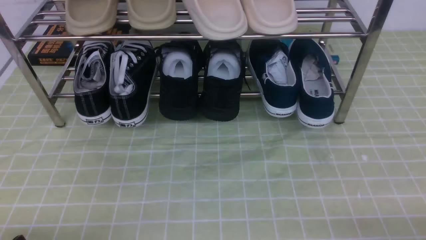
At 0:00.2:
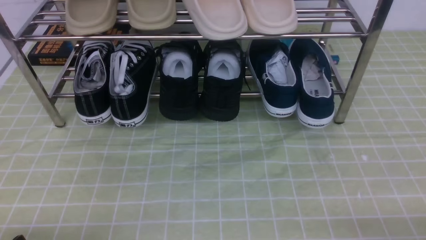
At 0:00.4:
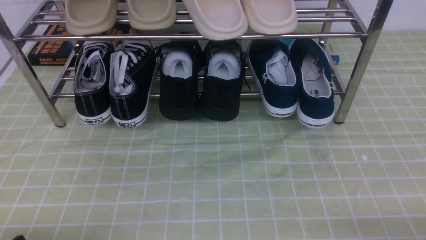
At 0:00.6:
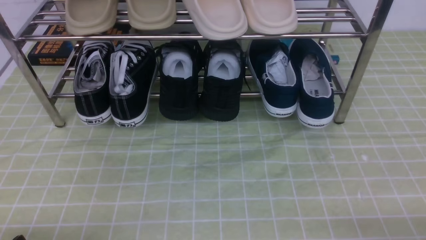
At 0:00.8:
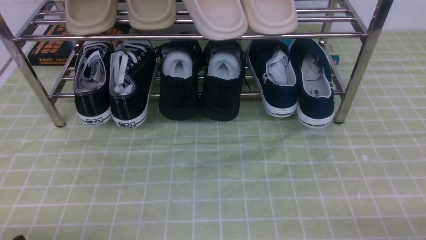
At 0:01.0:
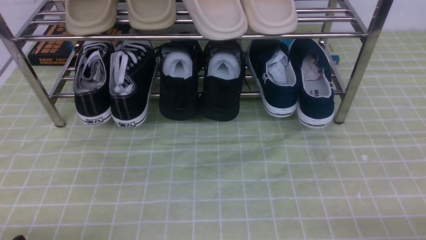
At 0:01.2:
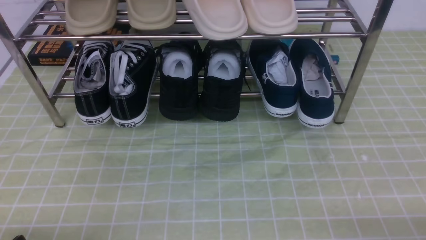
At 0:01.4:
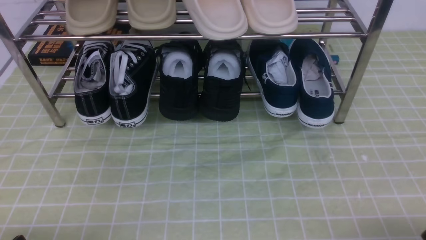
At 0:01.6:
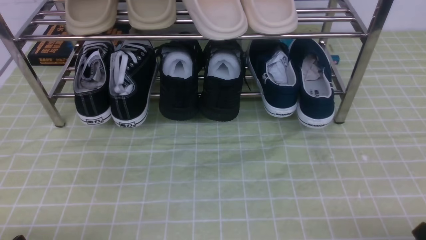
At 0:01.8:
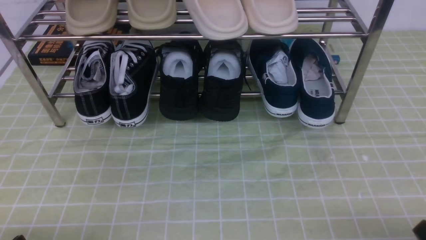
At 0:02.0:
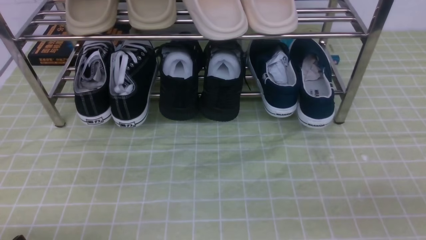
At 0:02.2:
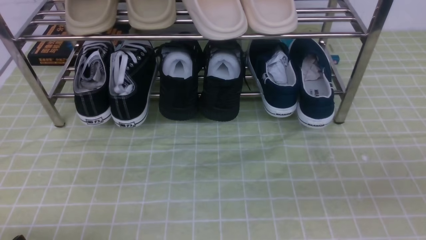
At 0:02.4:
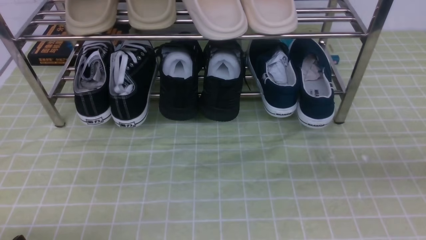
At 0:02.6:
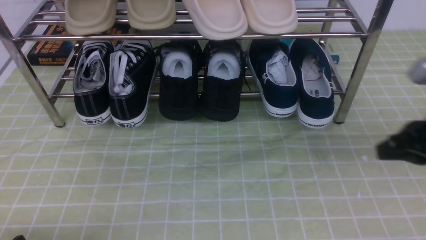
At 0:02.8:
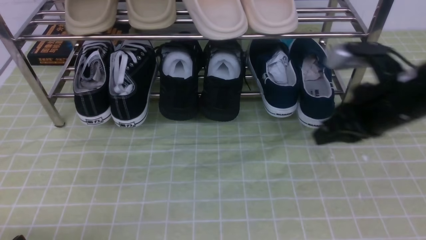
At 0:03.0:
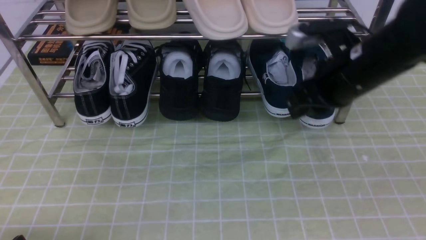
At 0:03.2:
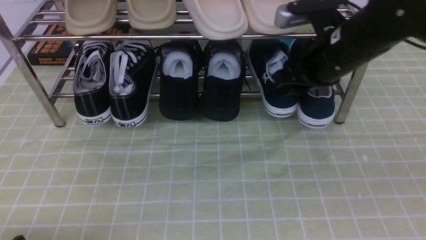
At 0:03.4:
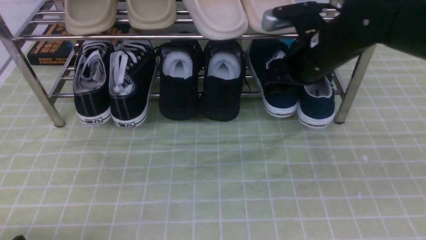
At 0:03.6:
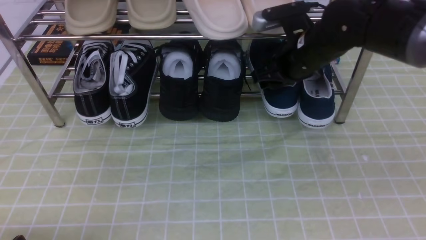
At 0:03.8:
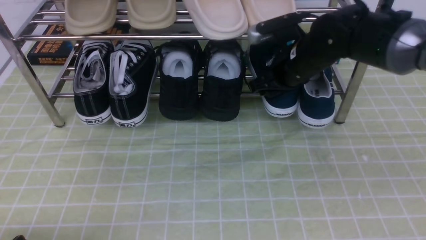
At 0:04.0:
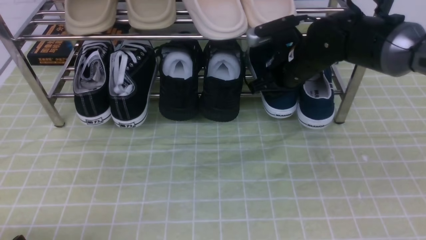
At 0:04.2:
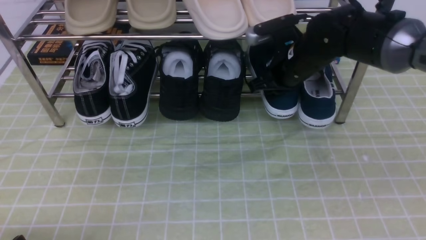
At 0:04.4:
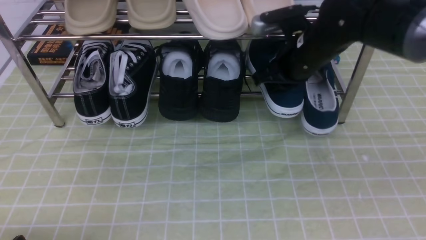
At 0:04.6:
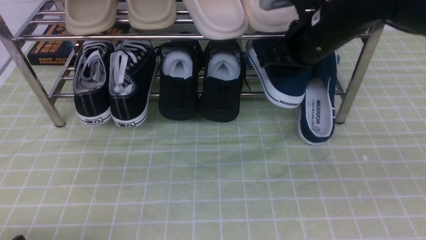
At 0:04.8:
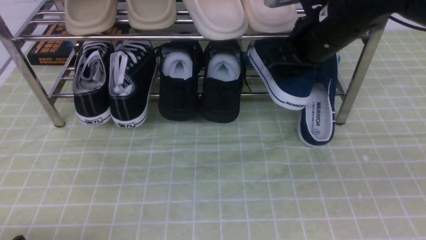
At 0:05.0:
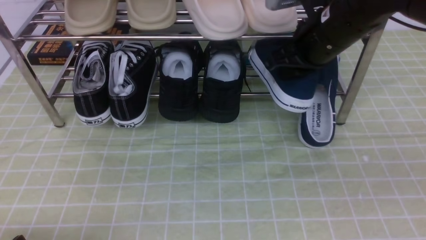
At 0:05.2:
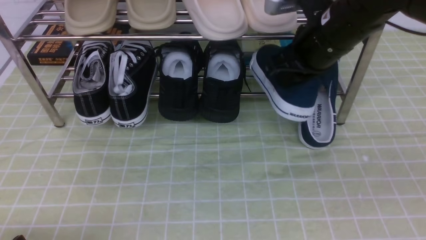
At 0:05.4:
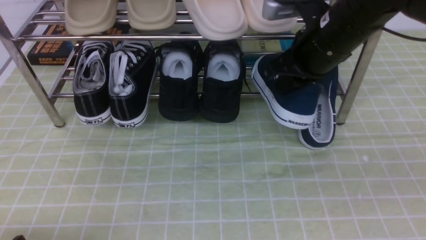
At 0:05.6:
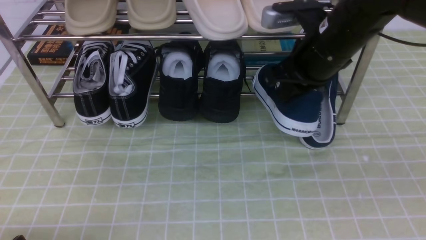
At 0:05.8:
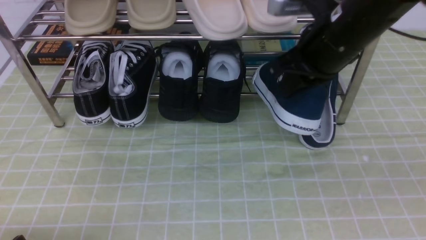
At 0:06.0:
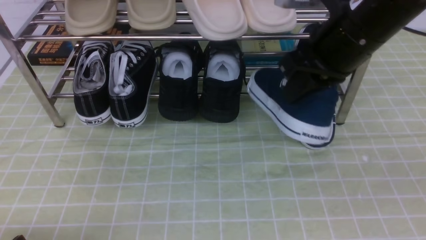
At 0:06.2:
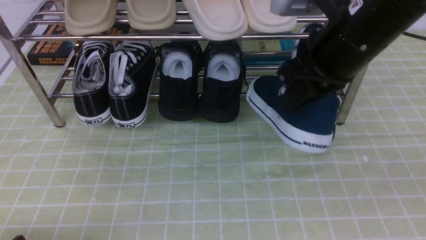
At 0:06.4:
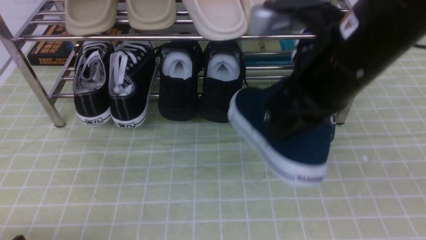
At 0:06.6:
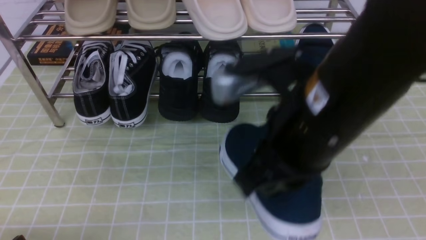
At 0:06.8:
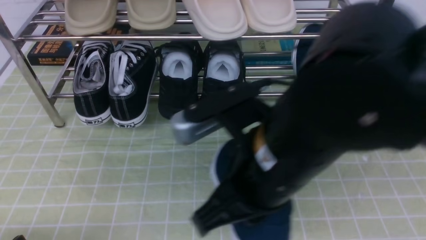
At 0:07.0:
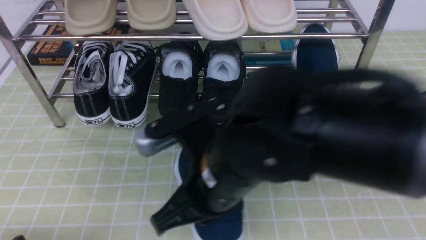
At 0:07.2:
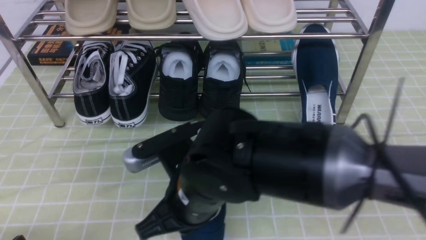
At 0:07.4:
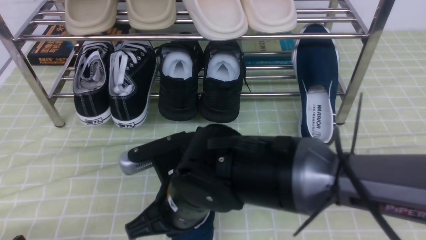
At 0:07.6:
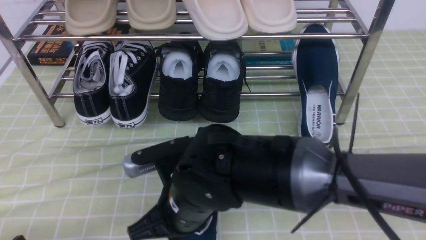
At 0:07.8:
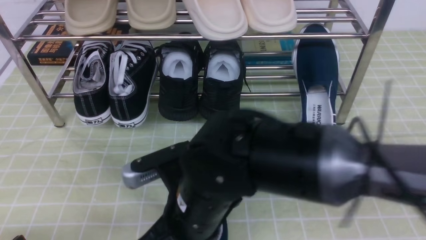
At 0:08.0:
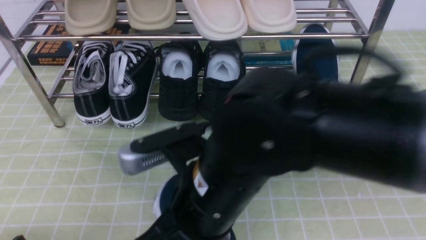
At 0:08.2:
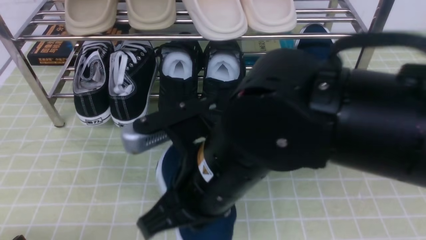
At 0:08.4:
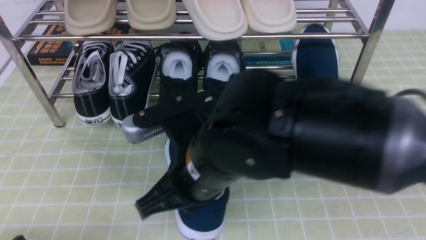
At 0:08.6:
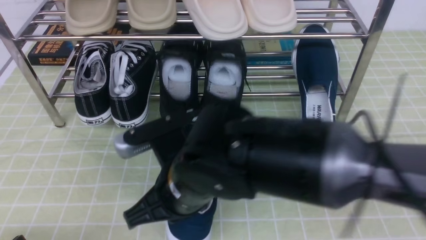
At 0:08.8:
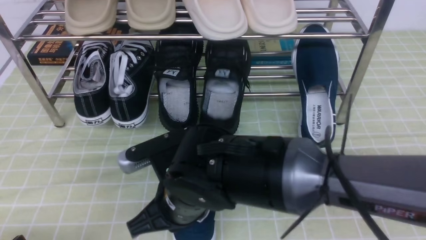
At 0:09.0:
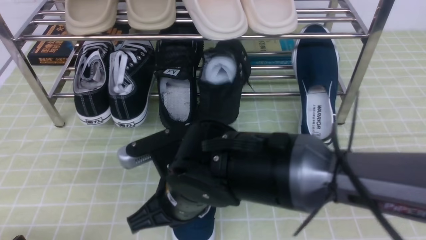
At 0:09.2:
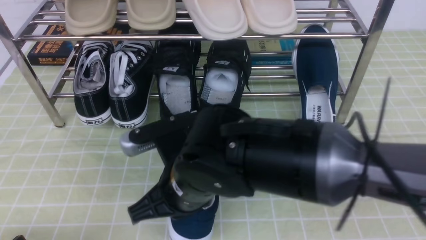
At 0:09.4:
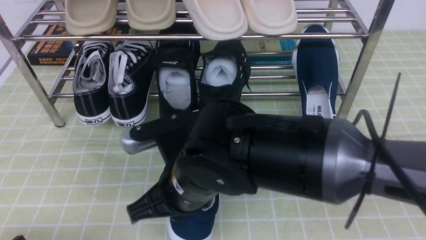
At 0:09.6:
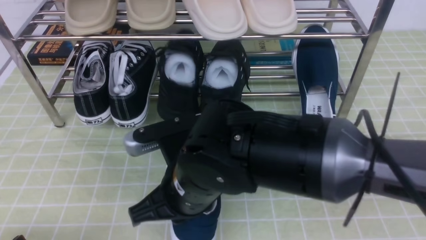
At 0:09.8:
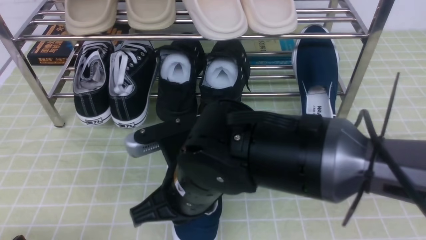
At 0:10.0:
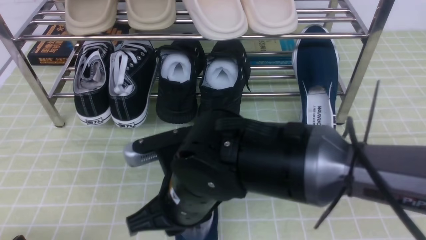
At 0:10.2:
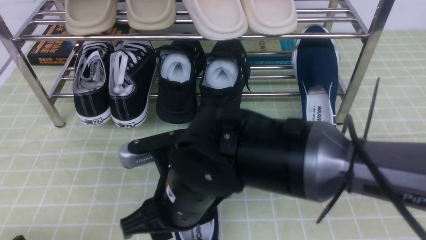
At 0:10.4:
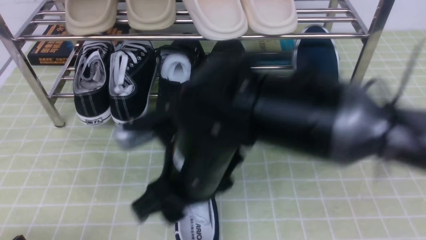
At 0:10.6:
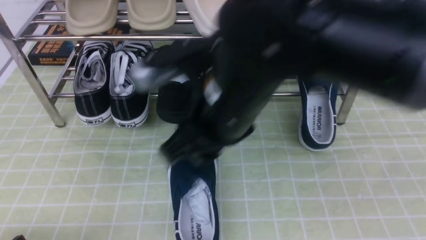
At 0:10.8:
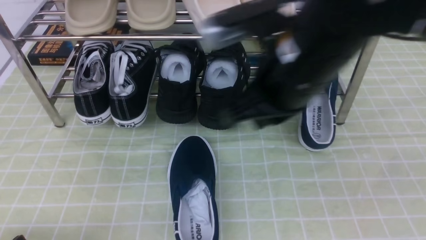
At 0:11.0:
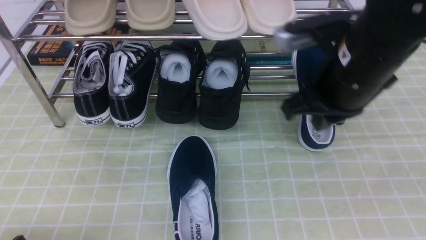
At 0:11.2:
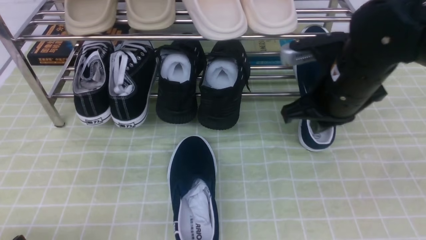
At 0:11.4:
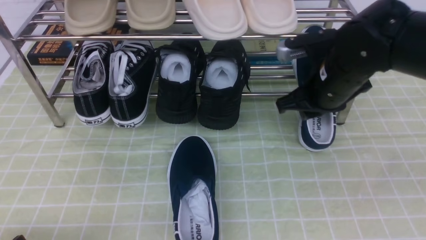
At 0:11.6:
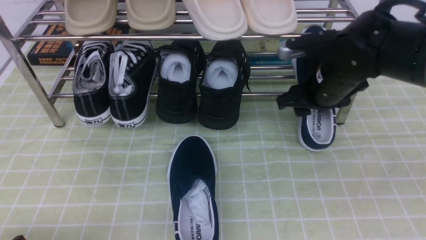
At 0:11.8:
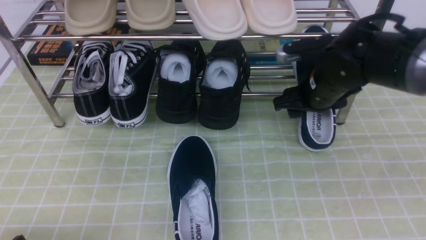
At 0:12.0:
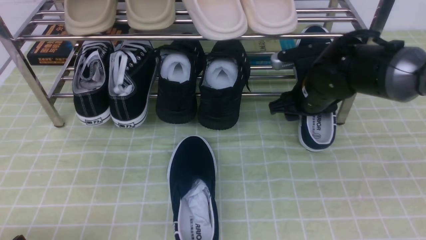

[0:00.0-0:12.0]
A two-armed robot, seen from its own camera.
Step, 0:00.0 to 0:03.8: use the right arm to clamp a shoe on the right side of the shoe rack.
Step, 0:04.0 to 0:10.2: use the right arm to take out the clamped shoe from the shoe rack and put it down.
Step, 0:10.4 to 0:12.0: use the right arm to clamp a shoe on the right side of the shoe rack.
0:01.6 to 0:03.0: The right gripper heads forward, upward and to the left, covering approximately 30 cm, and closes and opens again.
0:03.0 to 0:04.4: The right gripper shifts roughly 10 cm forward and to the left, and opens and closes again.
0:04.4 to 0:06.0: The right gripper heads backward and upward, covering about 10 cm.
0:06.0 to 0:07.6: The right gripper travels to the left, downward and backward by roughly 25 cm.
0:07.6 to 0:09.0: The right gripper goes upward and returns, roughly 10 cm each way.
0:09.0 to 0:10.4: The right gripper moves upward, some 5 cm, and opens.
0:10.4 to 0:12.0: The right gripper goes some 25 cm to the right and forward, and closes and opens again.

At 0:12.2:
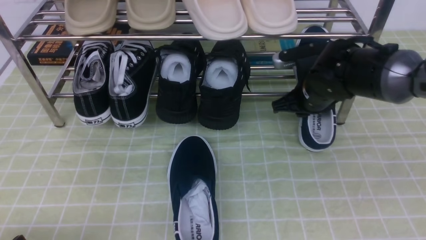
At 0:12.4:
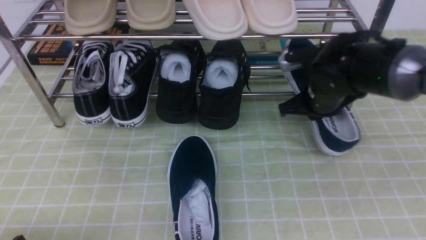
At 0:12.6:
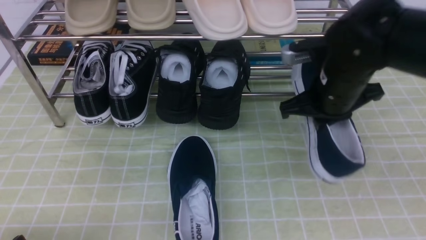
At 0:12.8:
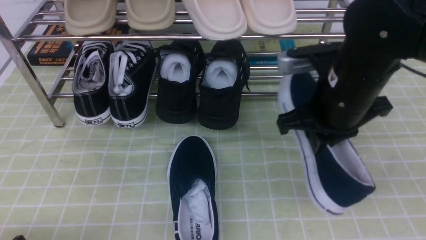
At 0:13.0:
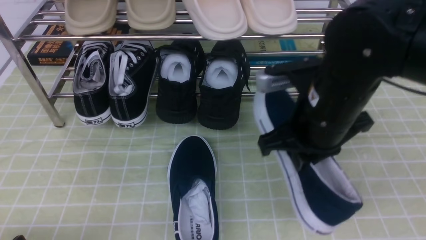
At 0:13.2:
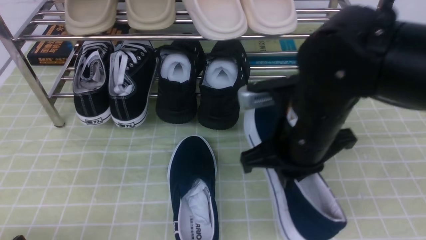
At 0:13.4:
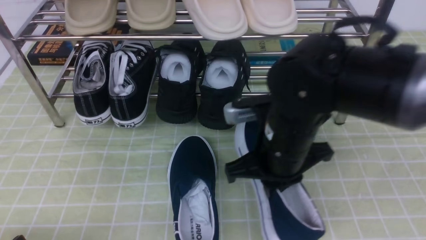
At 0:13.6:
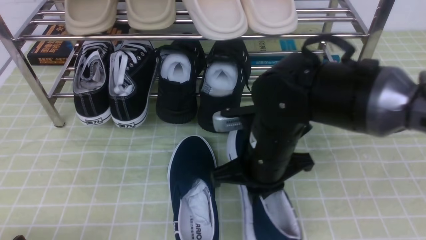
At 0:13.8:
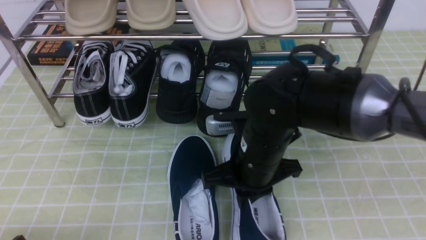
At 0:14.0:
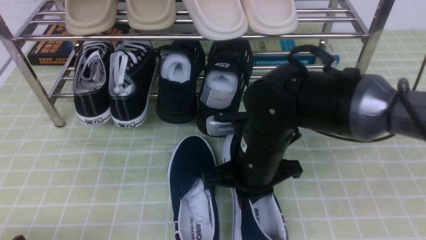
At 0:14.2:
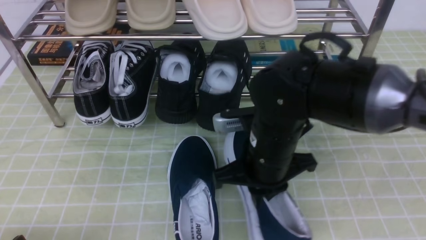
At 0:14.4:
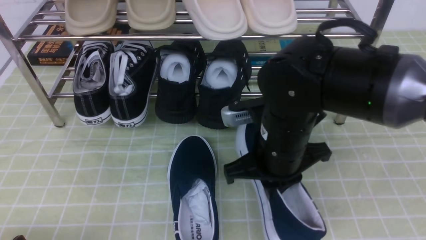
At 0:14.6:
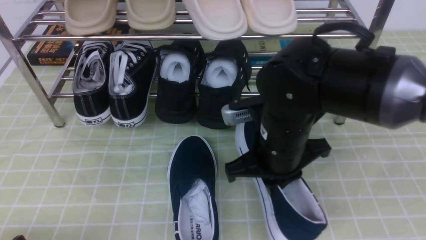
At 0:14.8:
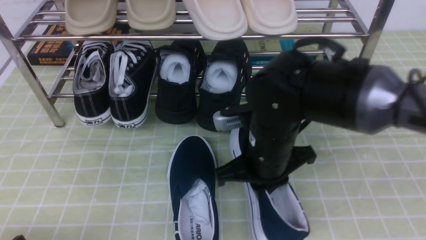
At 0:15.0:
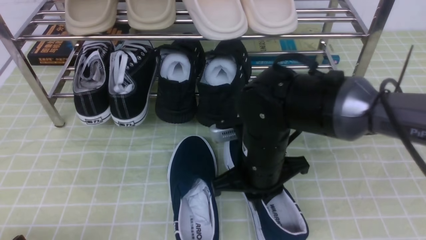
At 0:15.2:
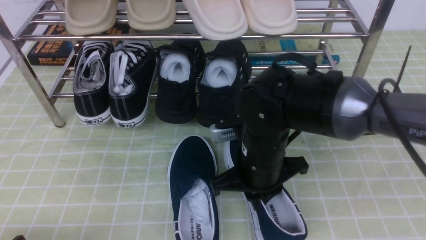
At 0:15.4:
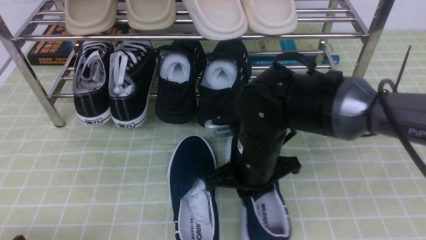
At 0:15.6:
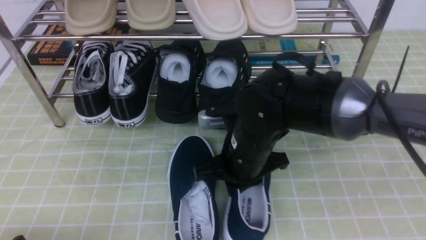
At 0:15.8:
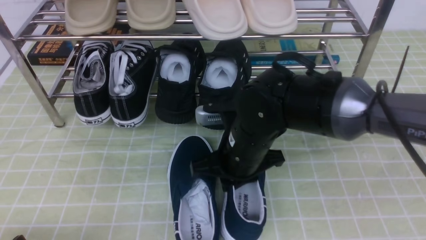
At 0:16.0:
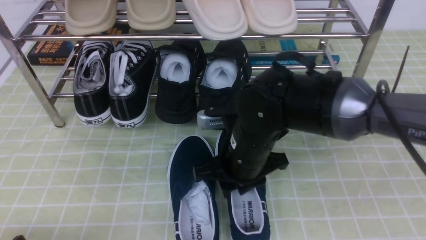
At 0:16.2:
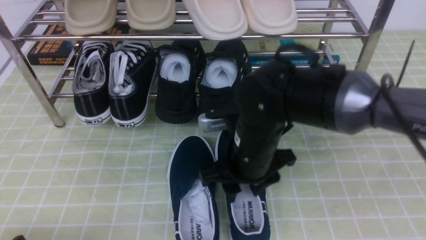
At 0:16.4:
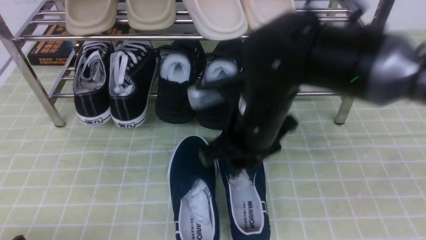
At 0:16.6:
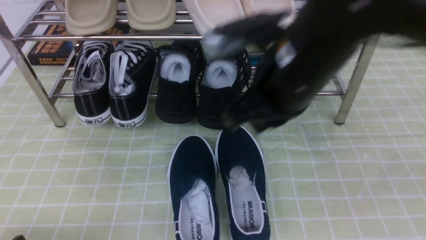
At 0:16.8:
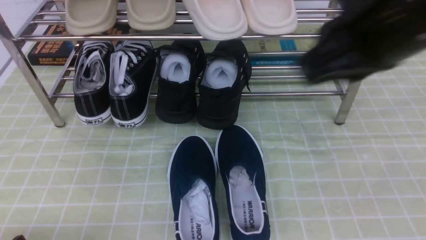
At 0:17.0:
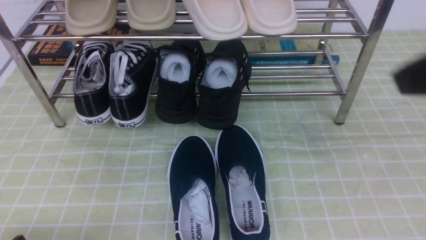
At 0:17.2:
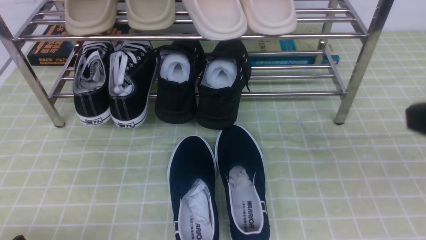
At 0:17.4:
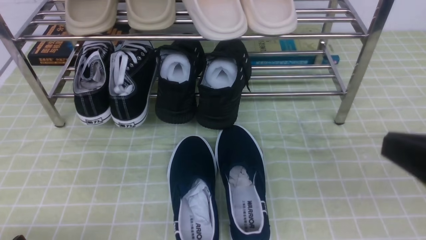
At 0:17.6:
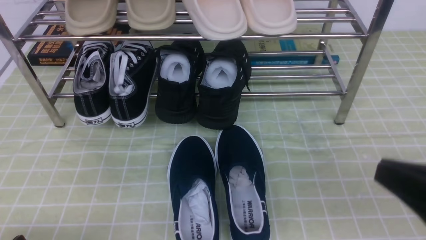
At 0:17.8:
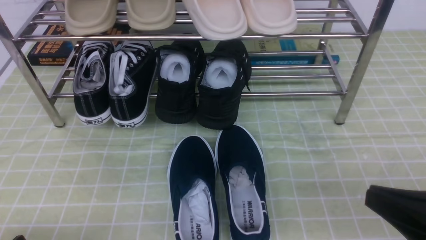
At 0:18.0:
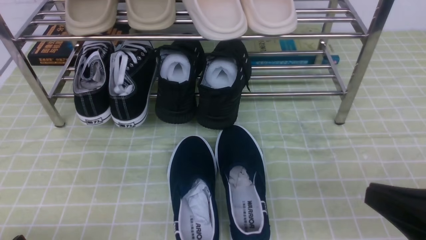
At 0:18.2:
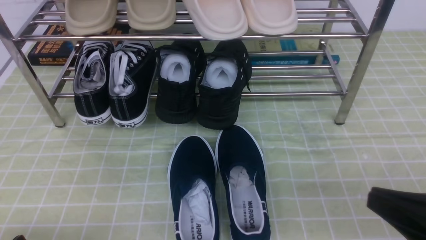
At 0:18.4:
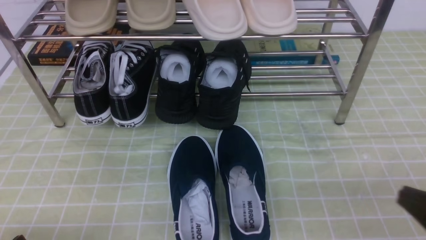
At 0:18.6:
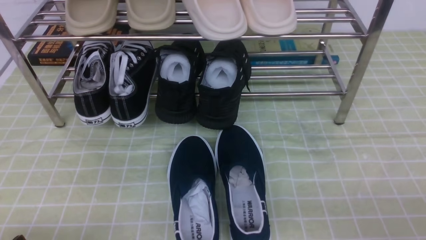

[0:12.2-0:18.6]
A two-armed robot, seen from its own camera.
Step, 0:12.2 to 0:16.4: use the right arm to take out the clamped shoe from the shoe rack and put it down.
0:12.2 to 0:13.8: The right gripper travels backward and to the left by about 15 cm, and closes its fingers.
0:13.8 to 0:15.4: The grippers stay close to where they were, moving slightly.
0:15.4 to 0:17.0: The right gripper travels upward, to the right and backward by approximately 30 cm, and opens, then closes once more.
0:17.0 to 0:18.6: The right gripper travels downward and to the right by some 25 cm.
